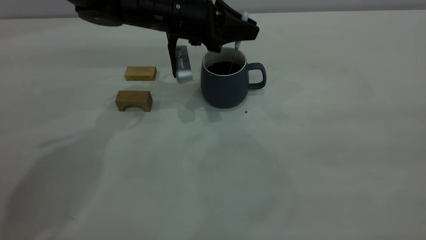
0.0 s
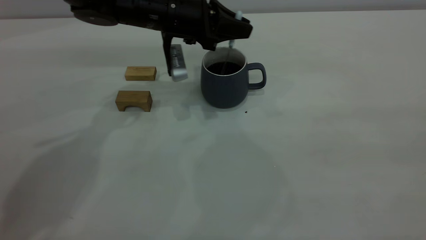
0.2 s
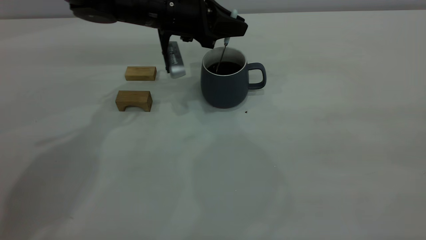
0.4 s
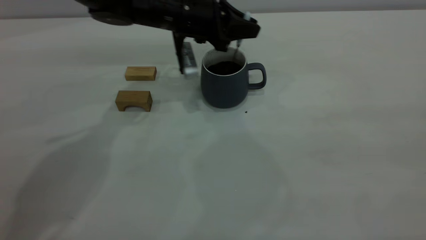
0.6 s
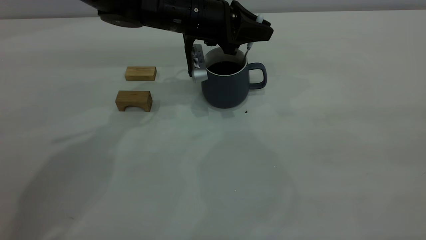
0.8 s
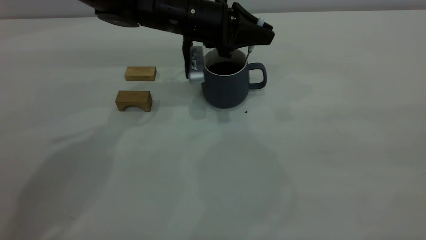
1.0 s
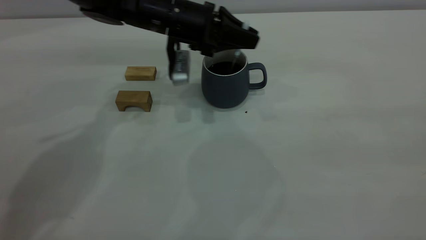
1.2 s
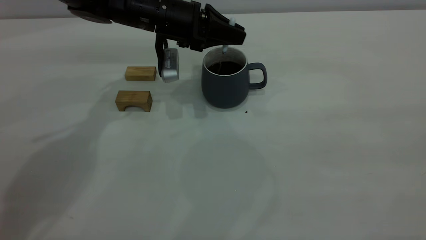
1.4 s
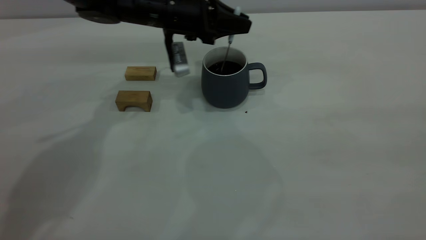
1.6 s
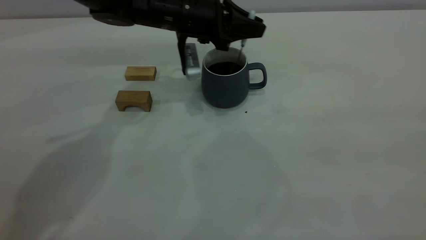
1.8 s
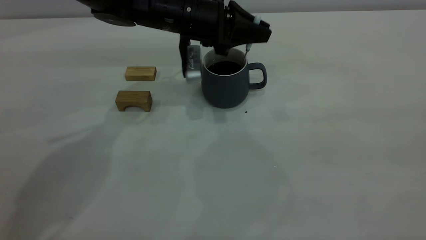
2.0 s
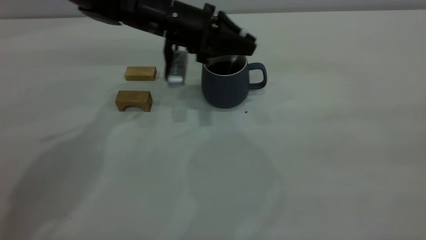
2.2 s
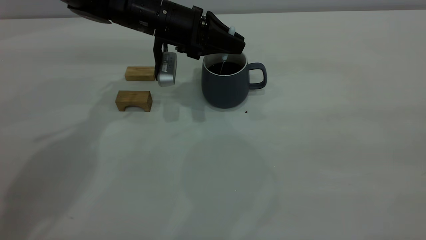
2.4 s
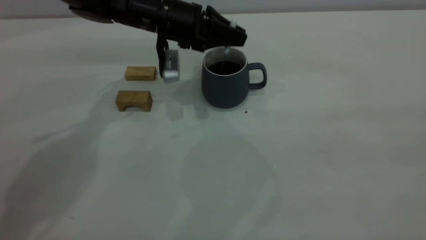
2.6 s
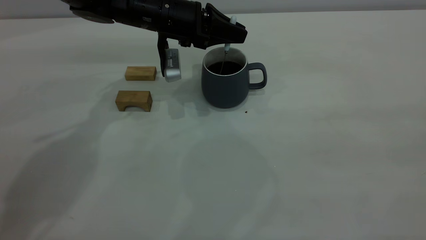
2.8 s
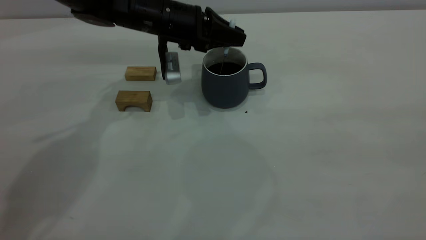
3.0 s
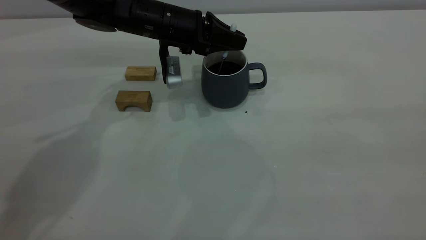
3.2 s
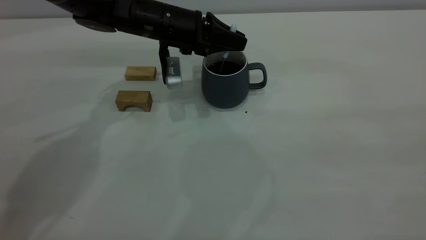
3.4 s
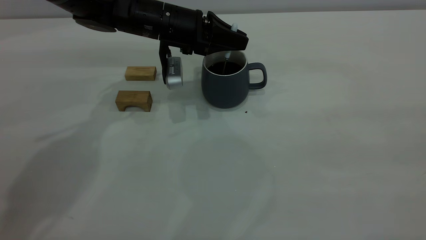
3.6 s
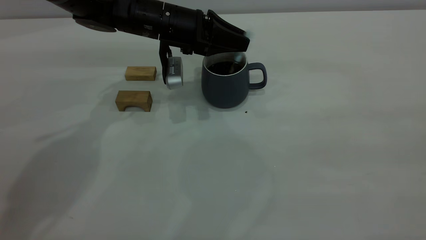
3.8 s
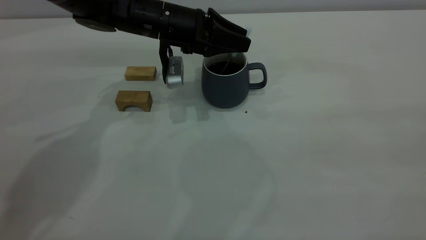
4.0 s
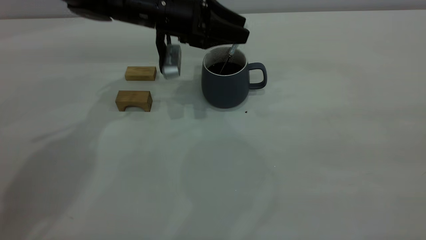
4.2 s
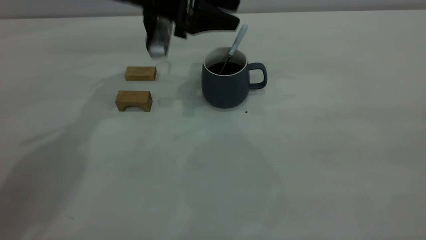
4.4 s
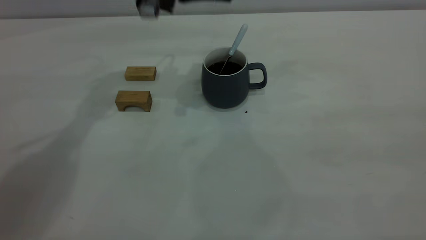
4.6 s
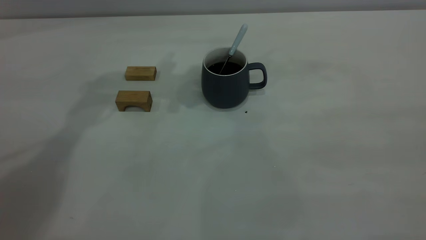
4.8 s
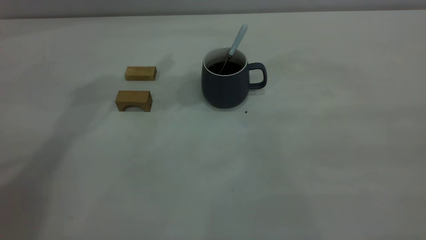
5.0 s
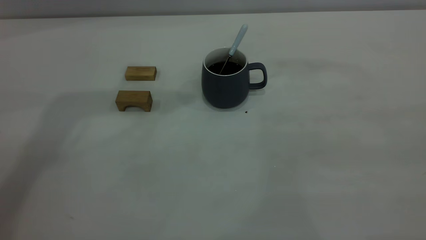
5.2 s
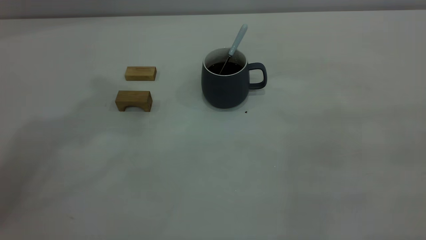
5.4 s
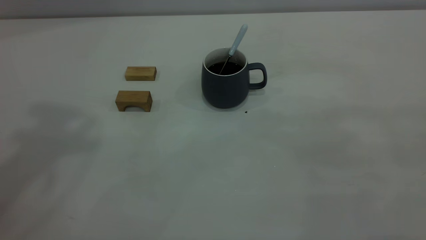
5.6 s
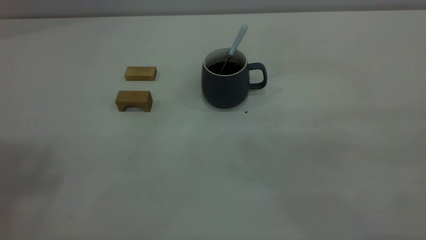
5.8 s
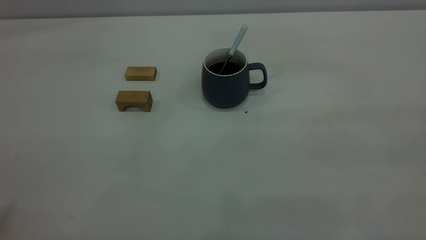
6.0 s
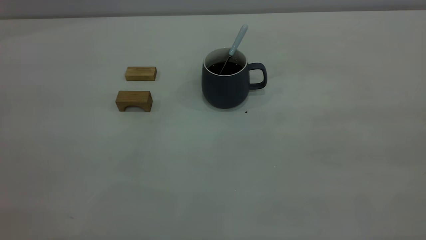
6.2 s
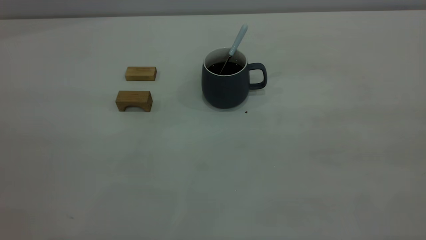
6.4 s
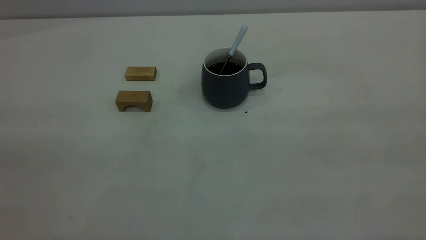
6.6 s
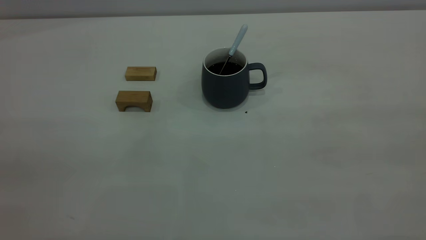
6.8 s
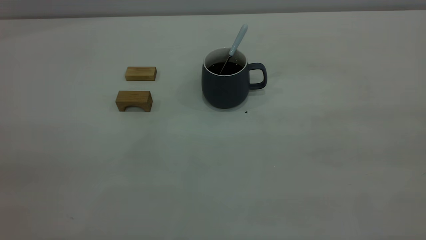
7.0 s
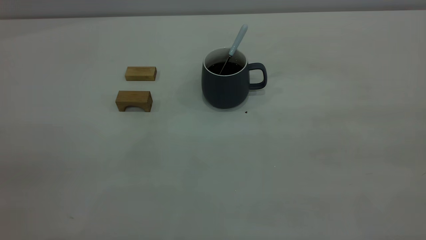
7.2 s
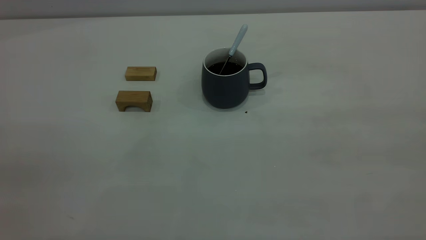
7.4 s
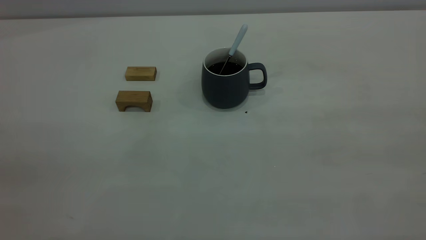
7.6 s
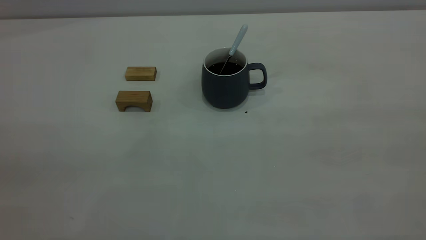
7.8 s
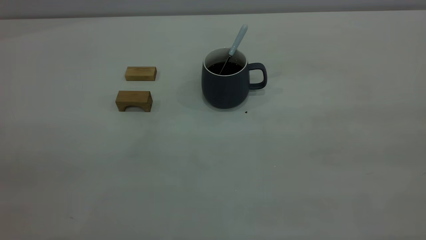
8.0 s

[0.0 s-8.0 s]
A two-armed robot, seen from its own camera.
Step, 0.0 to 4.0 s: Stir the coffee with left gripper.
0.0 to 3.2 s: There are only small adjustments of the grippers.
3.2 to 4.8 s: The left gripper is displaced upward by approximately 20 cm, and opens its fingers.

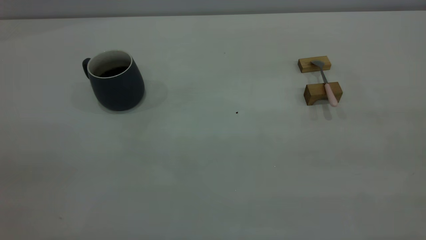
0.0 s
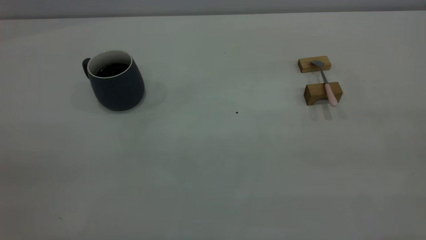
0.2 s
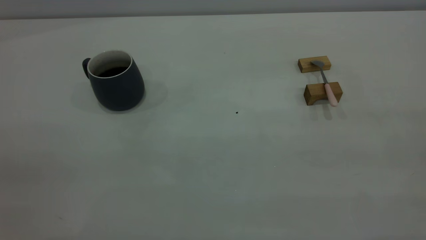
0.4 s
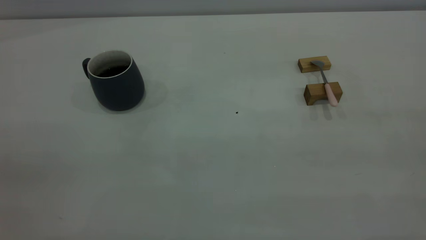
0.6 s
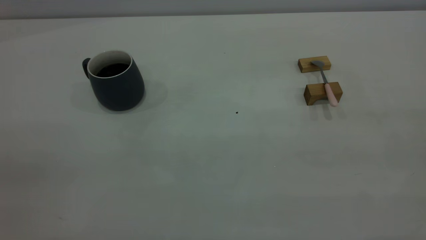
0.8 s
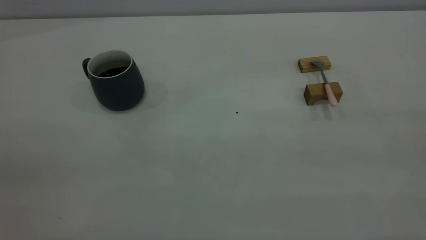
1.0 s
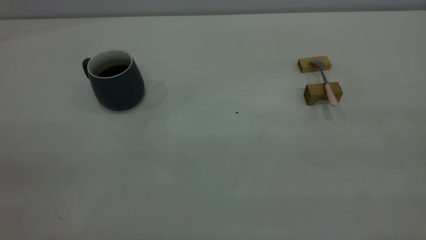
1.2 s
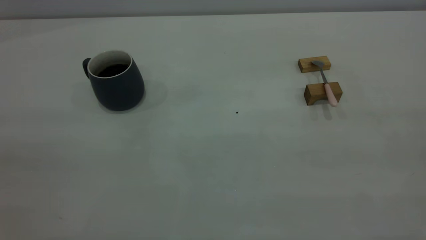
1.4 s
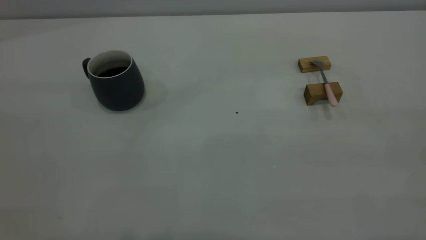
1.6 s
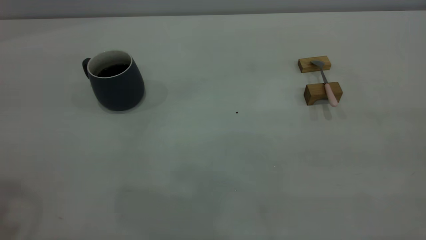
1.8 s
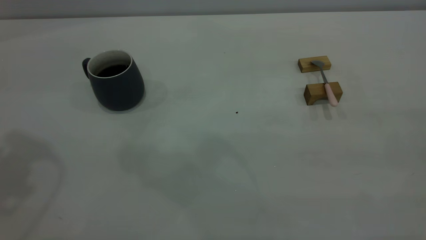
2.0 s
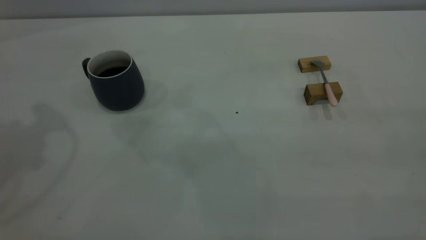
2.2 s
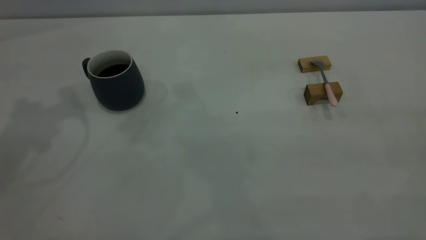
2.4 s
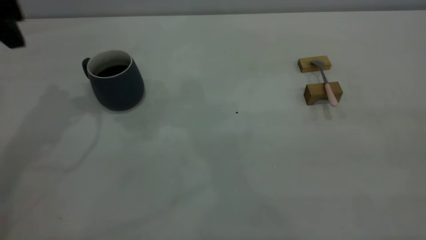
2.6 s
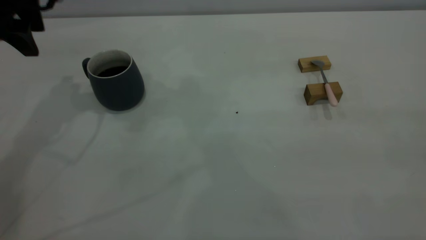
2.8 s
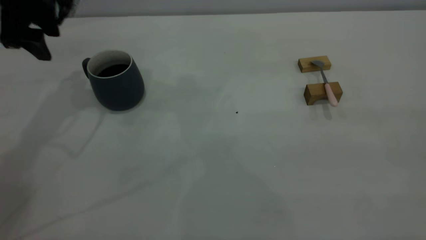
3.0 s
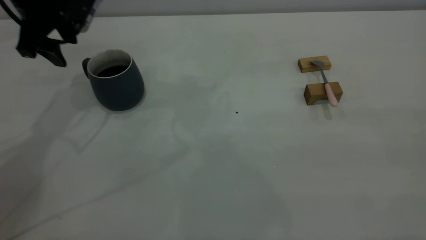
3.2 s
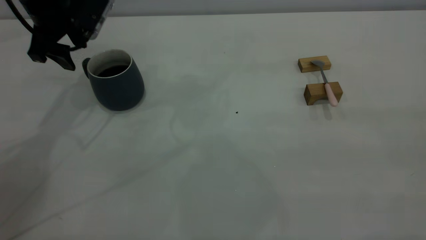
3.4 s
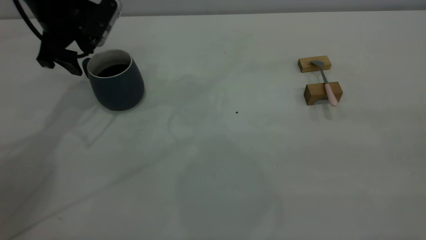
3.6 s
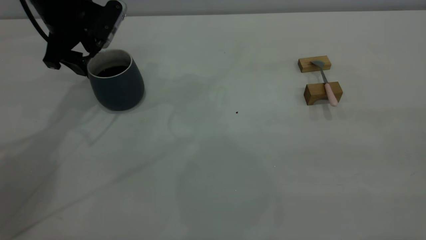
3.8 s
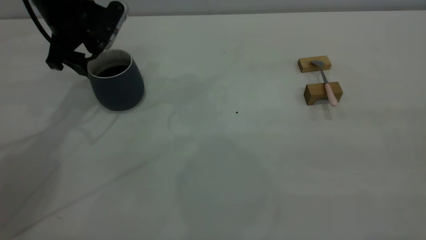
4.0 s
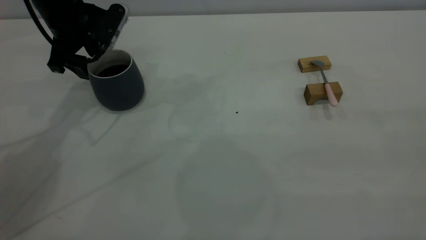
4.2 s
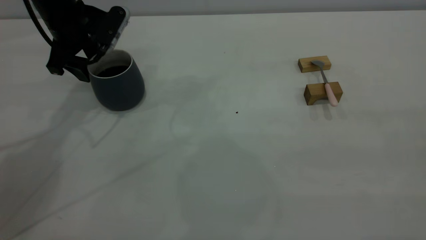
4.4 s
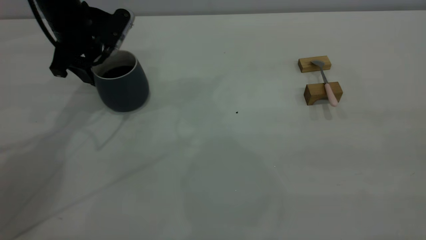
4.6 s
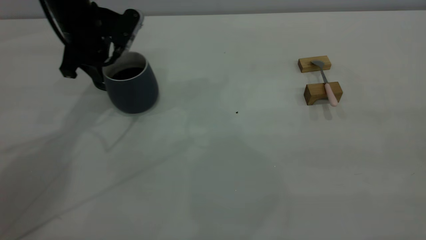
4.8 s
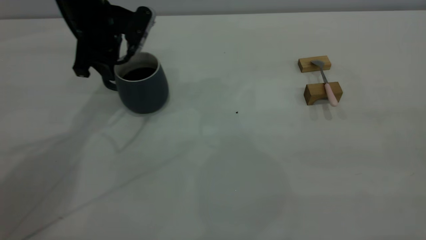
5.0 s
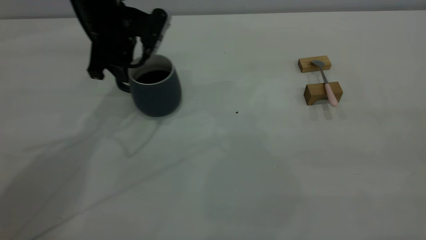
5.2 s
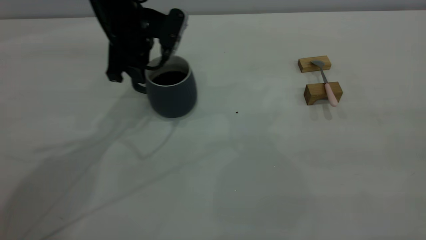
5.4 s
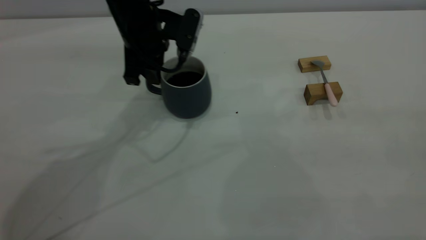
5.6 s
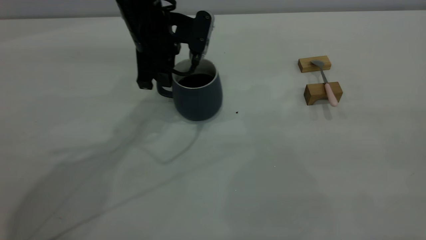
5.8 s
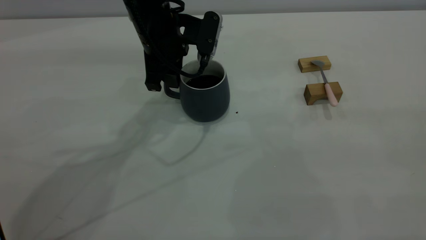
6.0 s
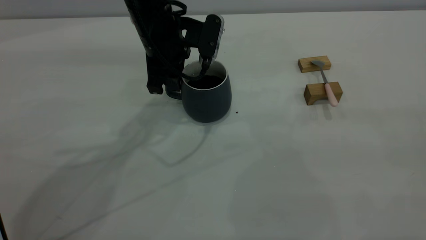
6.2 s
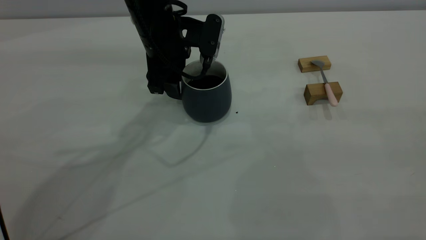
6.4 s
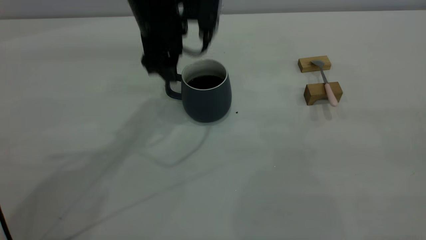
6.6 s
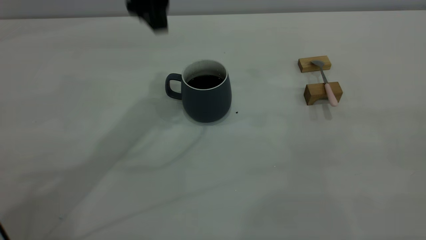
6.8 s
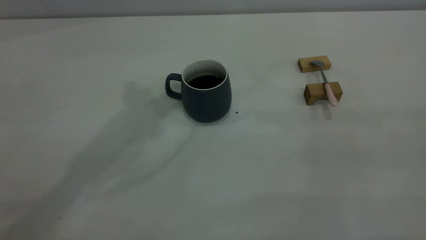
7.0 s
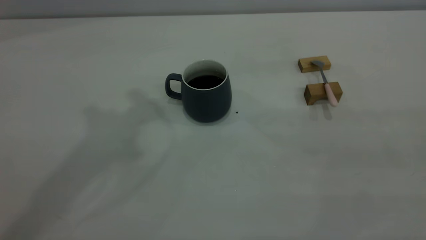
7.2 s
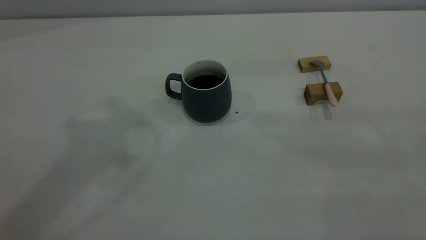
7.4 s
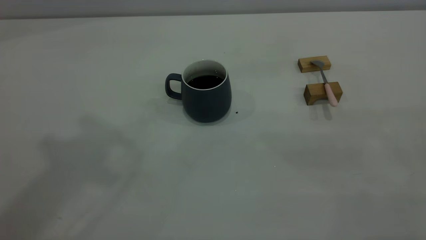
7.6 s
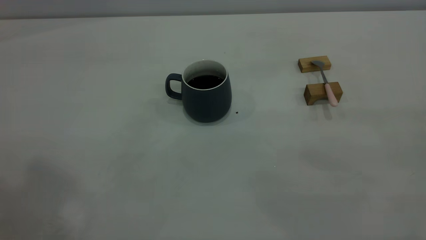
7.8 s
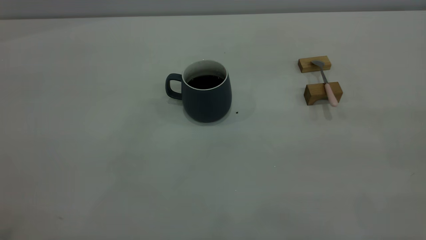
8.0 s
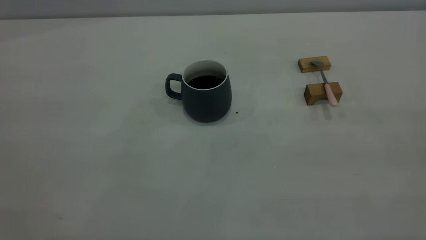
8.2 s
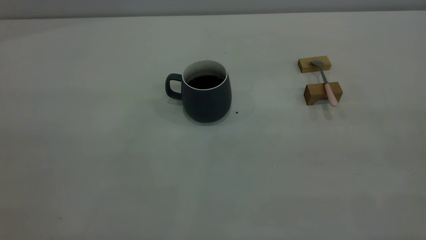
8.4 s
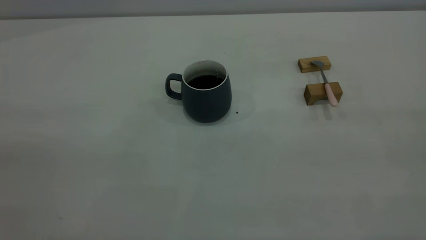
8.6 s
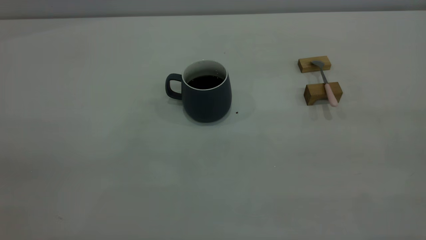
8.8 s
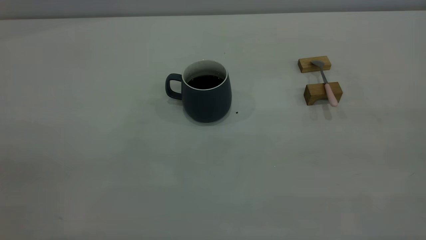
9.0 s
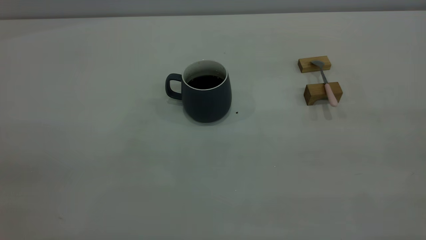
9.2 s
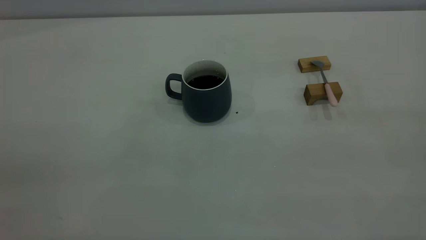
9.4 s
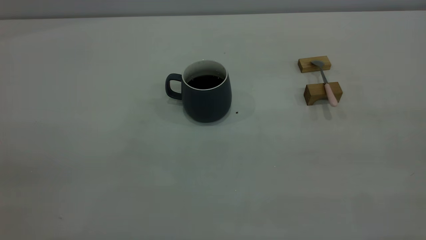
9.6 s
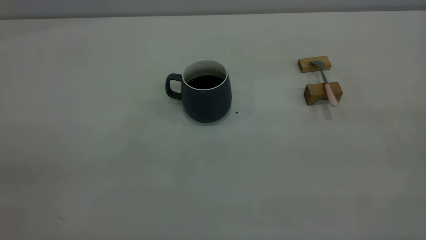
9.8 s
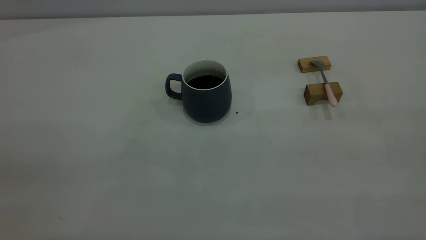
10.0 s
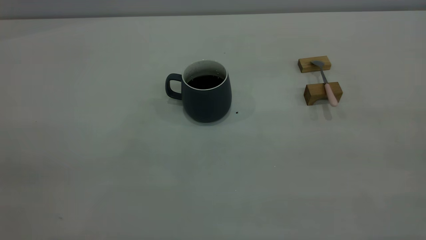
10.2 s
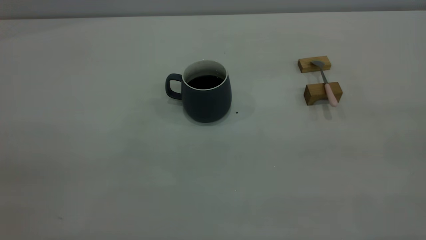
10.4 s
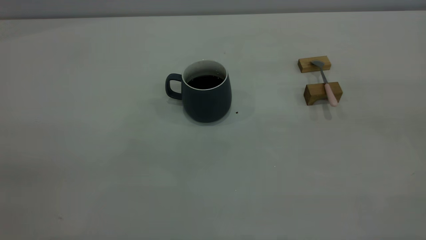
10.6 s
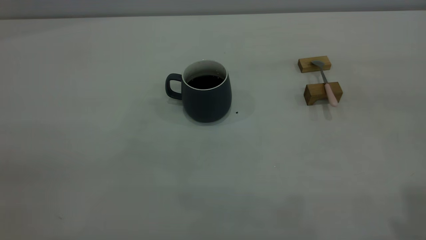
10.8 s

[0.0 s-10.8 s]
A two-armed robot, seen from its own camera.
Step, 0.0 to 6.6 s: Move the cup with coffee to the center of view.
1.6 to 3.0 s: The left gripper shifts some 40 cm forward and downward, and opens up.
3.0 to 4.6 s: The left gripper shifts some 5 cm downward, and closes its fingers.
4.6 to 6.2 s: The left gripper moves to the right, some 15 cm.
6.2 to 7.8 s: The left gripper is displaced upward and backward by approximately 50 cm, and opens, then closes again.
